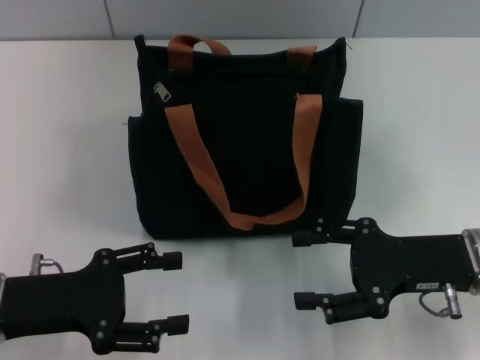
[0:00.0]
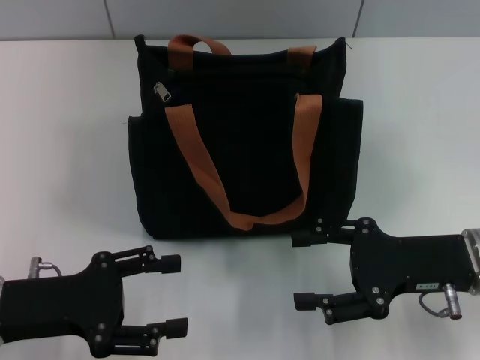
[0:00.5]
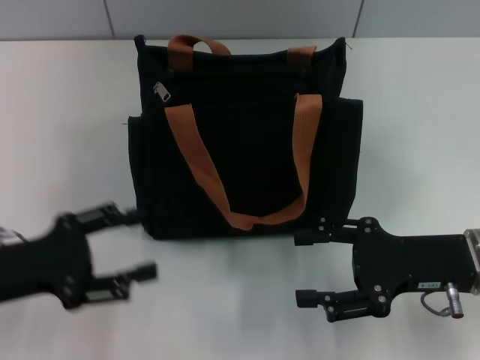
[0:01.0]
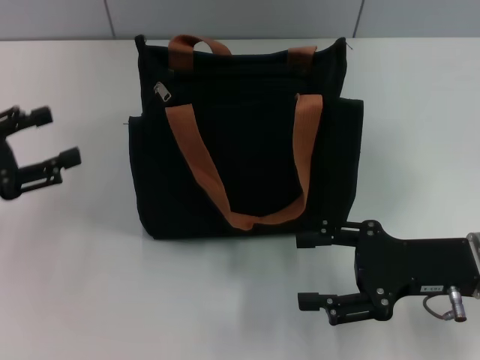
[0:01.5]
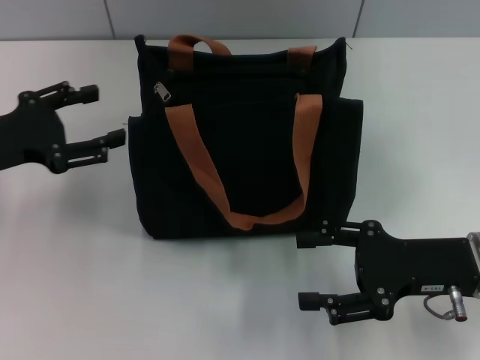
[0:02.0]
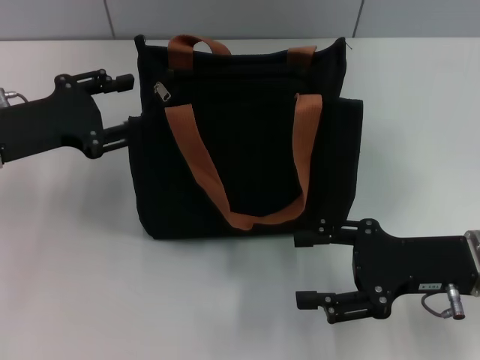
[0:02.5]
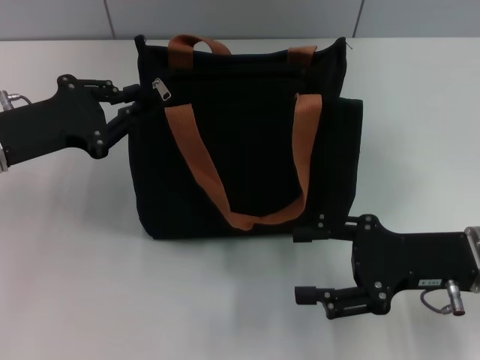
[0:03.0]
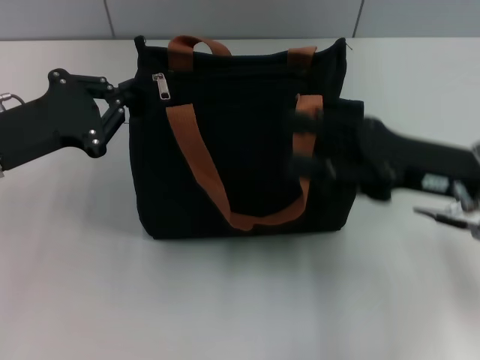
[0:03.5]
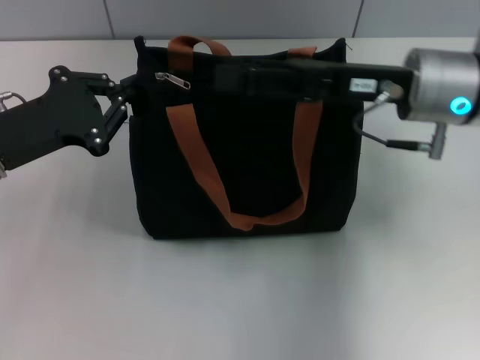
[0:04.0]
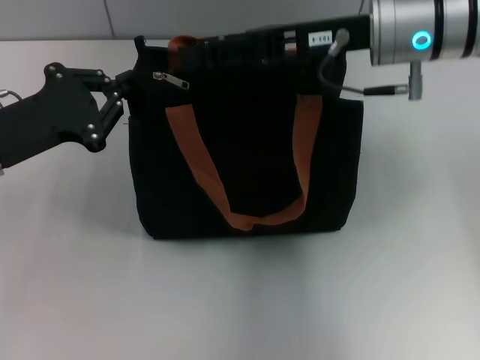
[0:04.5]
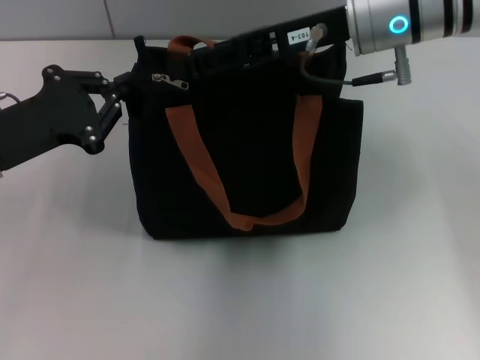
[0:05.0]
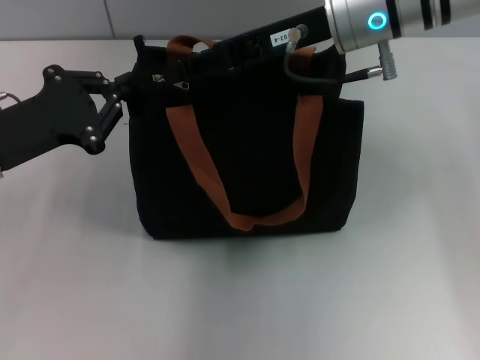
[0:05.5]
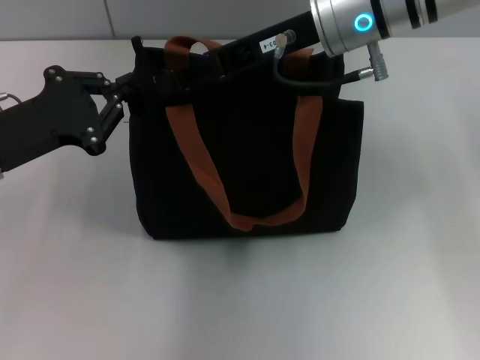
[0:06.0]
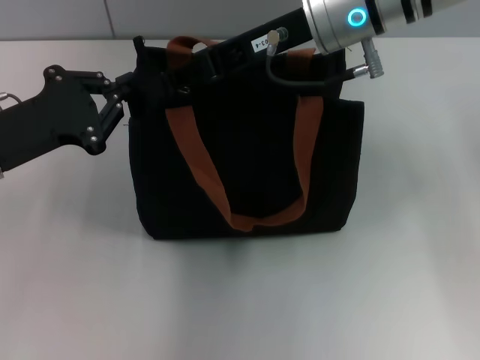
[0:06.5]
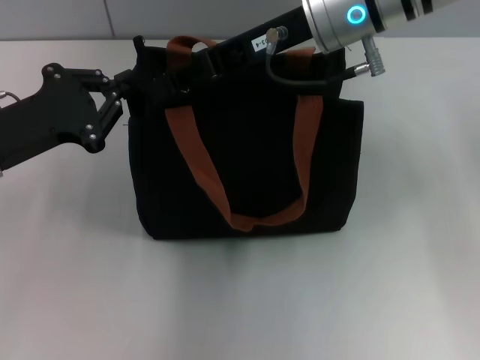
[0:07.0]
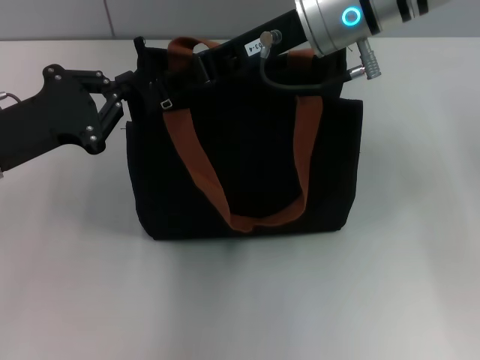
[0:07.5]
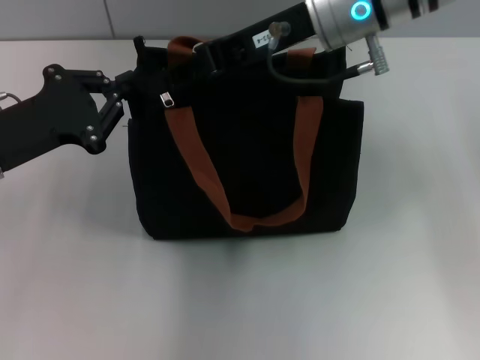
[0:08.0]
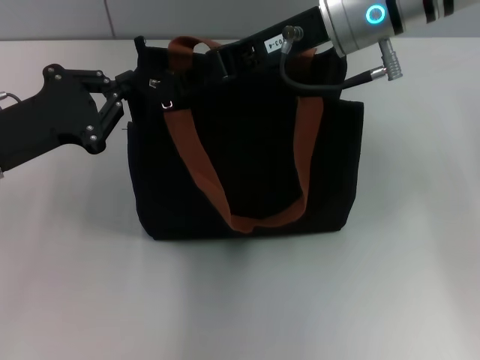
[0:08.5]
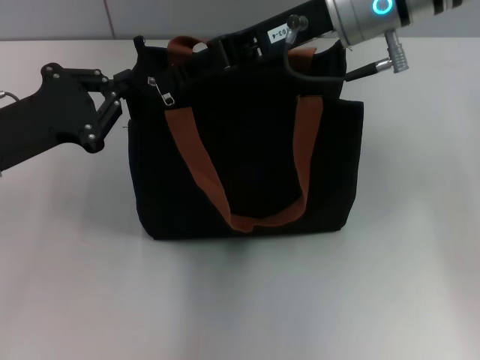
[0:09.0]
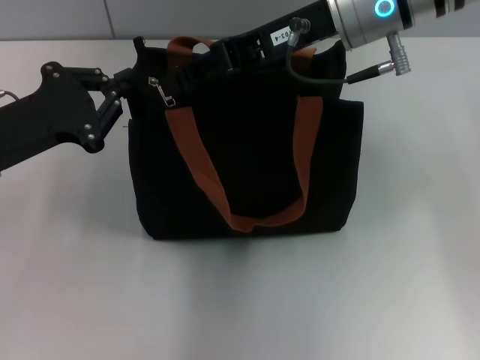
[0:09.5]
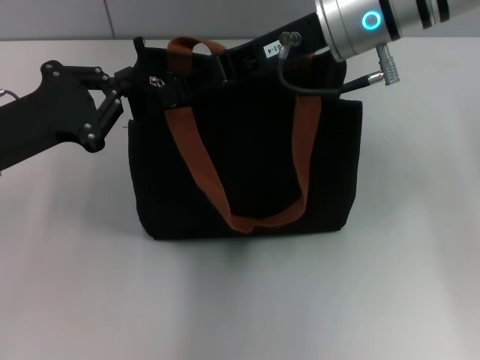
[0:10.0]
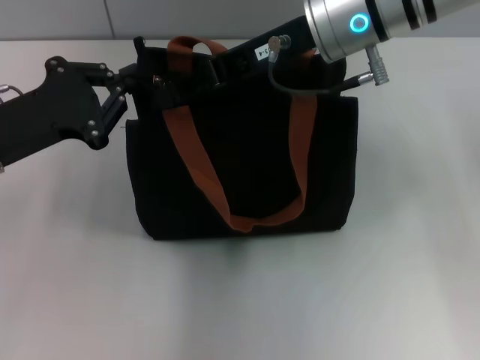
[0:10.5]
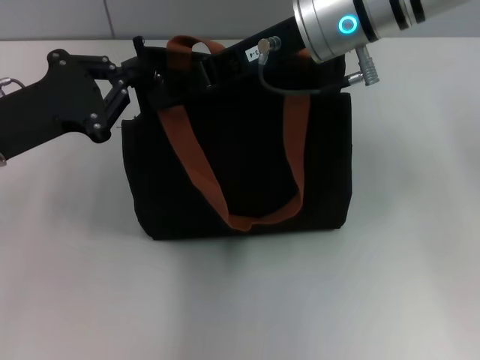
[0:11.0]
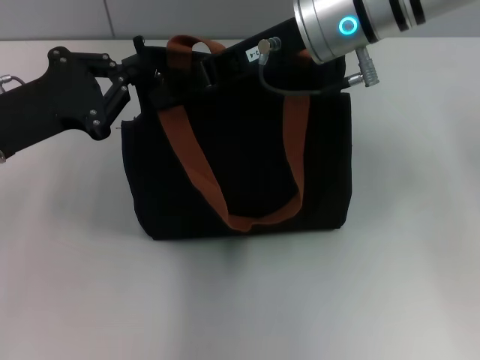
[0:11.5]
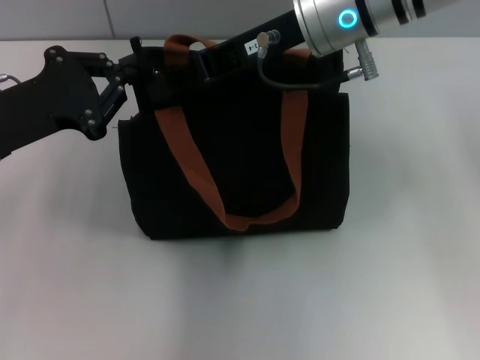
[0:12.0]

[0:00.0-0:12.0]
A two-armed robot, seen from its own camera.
0:00.0 to 0:02.0: The left gripper is displaced forward and upward by about 10 cm.
0:02.0 to 0:04.0: The left gripper closes up; the right gripper is displaced forward, upward and to the left by some 15 cm.
0:04.0 to 0:06.0: The right gripper shifts roughly 10 cm to the left, upward and forward, and closes its fingers.
0:06.0 to 0:12.0: The grippers stay close to where they were, moving slightly.

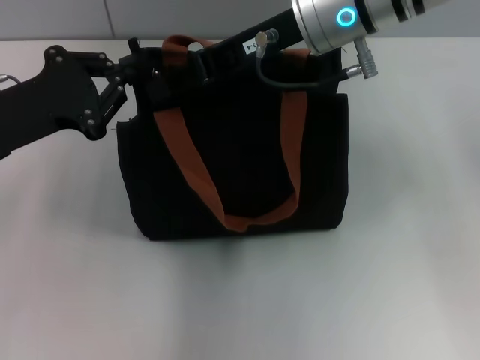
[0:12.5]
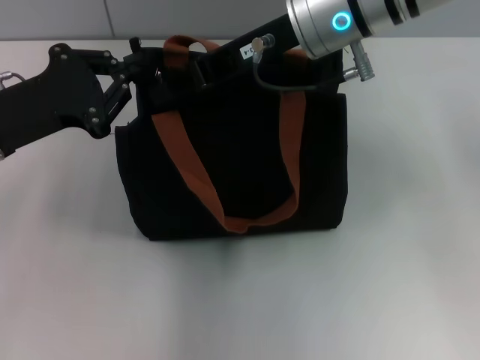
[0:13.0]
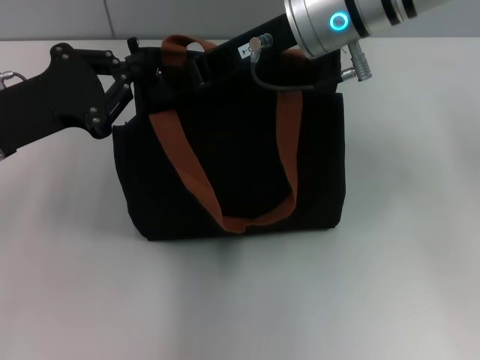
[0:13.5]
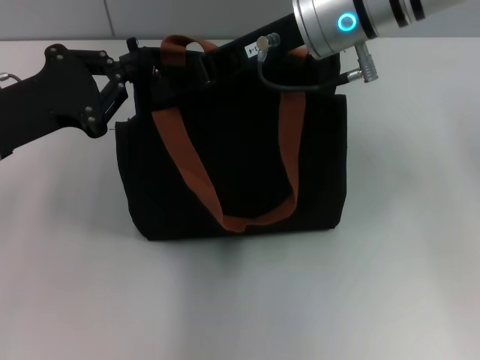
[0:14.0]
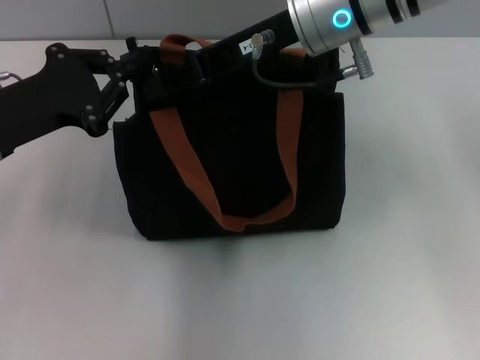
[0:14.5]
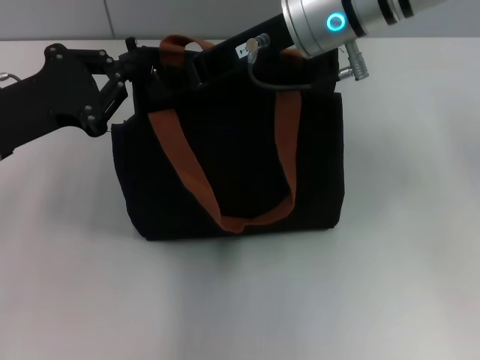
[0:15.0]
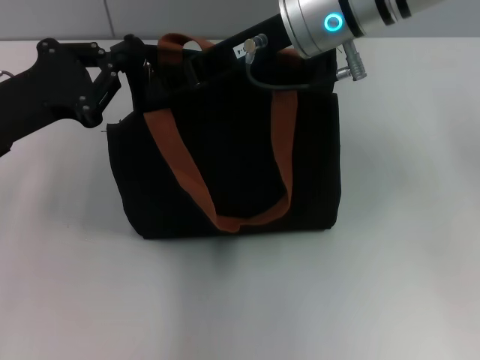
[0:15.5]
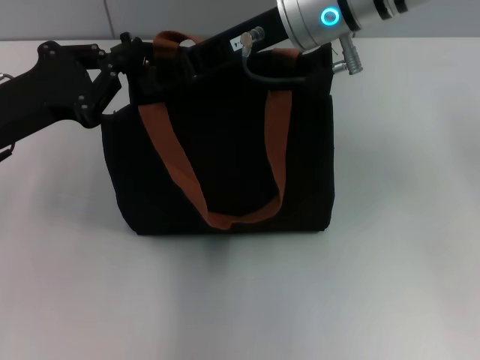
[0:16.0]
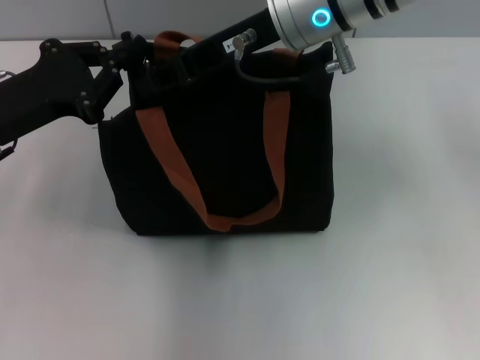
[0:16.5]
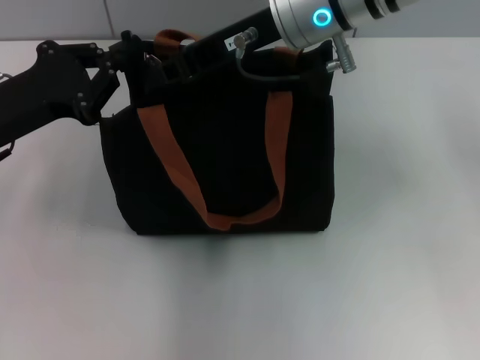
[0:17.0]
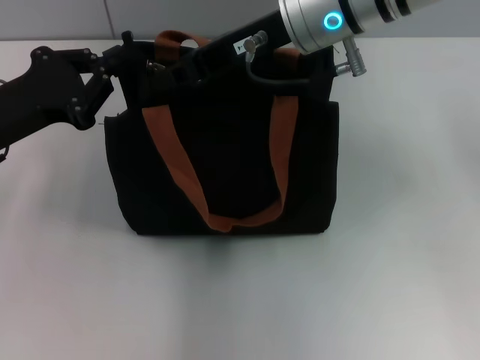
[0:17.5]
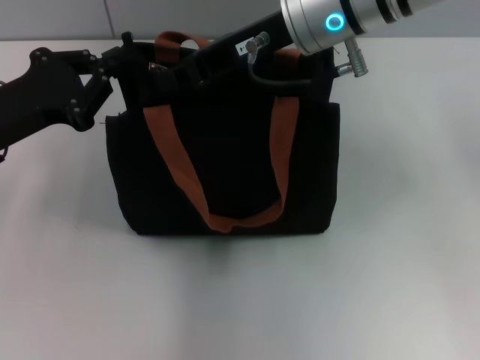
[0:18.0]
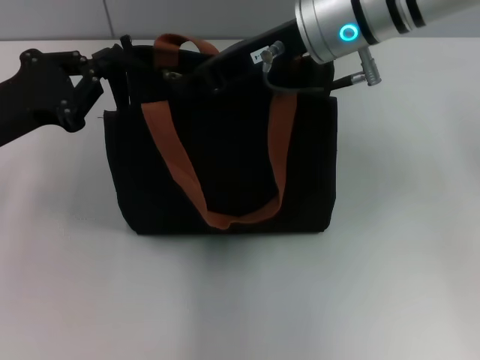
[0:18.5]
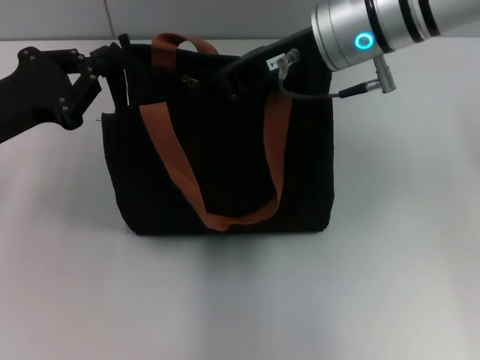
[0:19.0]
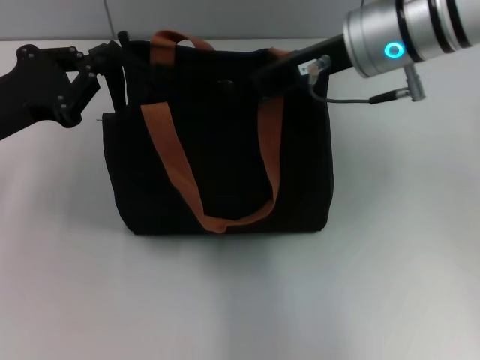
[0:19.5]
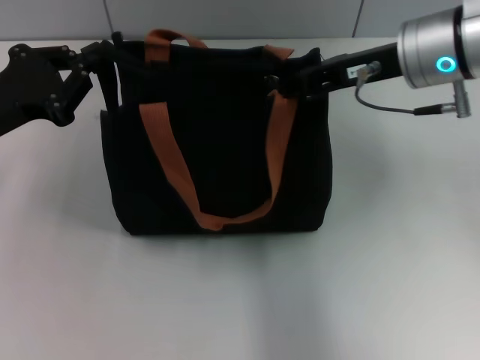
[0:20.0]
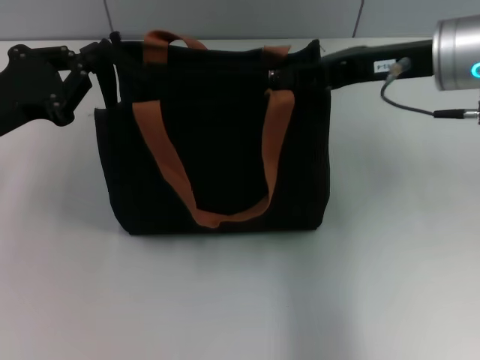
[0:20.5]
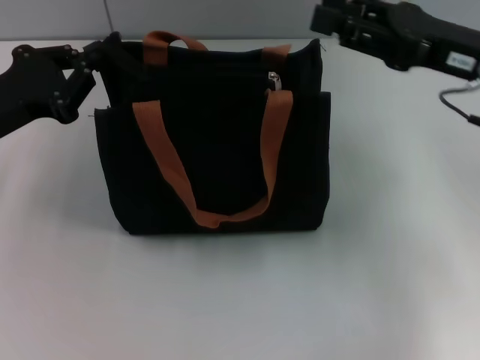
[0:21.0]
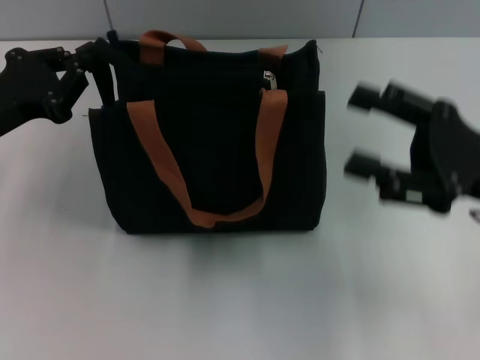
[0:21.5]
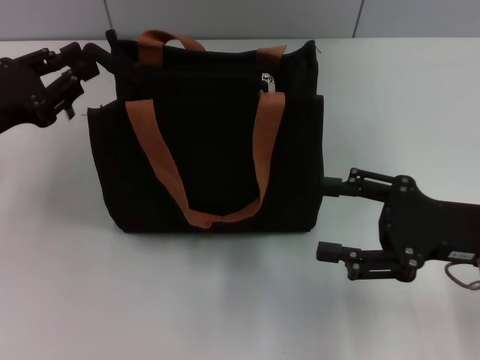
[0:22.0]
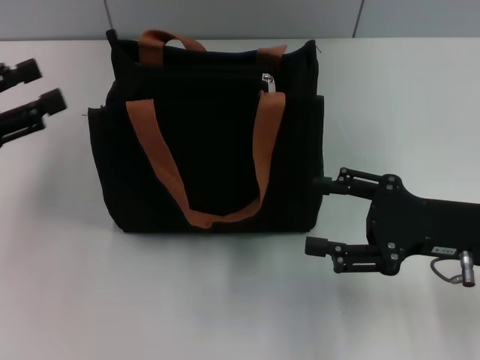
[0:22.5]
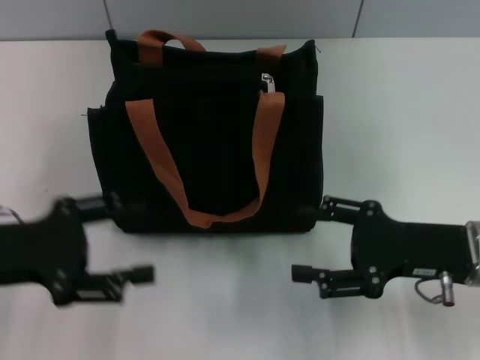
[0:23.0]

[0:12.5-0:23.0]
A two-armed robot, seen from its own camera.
Step, 0:12.5 to 0:20.0: Pull up the zipper with your right hand.
0:12.5 to 0:14.5: The two grippers keep their place.
0:14.5 to 0:16.5: The grippers stay close to where they were, moving slightly.
0:16.5 to 0:19.0: The right gripper closes its fingers.
0:19.0 to 0:21.0: The right gripper goes roughly 15 cm to the right and backward.
0:21.0 to 0:23.0: The right gripper travels downward and backward by about 15 cm, and opens its fingers. The left gripper heads backward, covering approximately 5 cm, and opens.

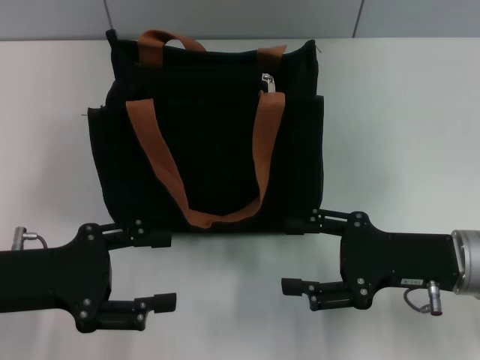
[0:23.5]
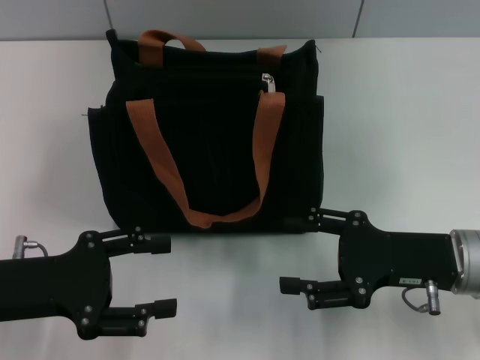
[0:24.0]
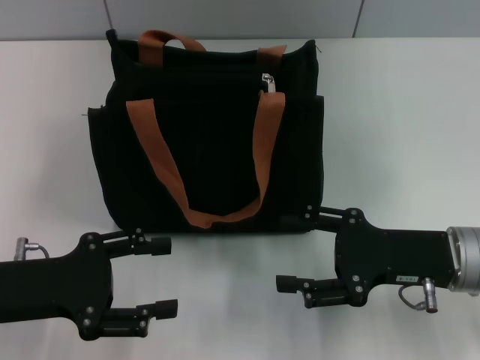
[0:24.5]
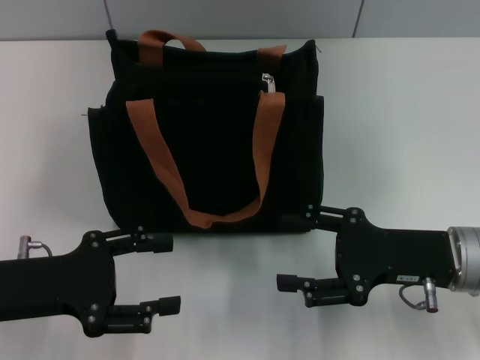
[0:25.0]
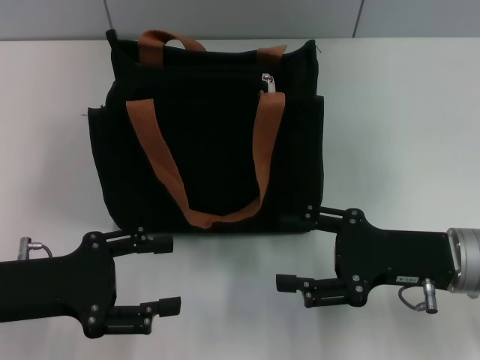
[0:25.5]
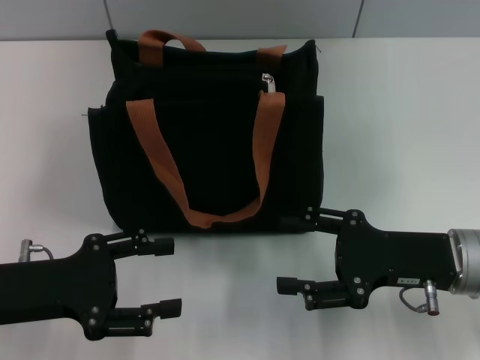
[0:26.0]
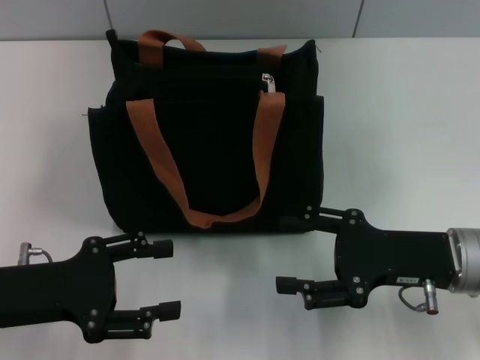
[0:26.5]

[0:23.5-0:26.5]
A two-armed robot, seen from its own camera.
0:23.5 to 0:25.0: Both grippers stay put.
0:25.0 to 0:26.5: The two grippers keep their place.
